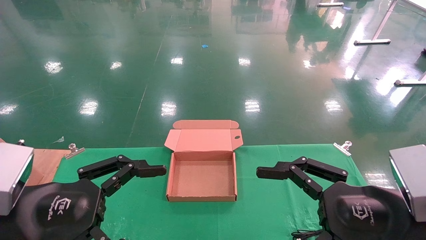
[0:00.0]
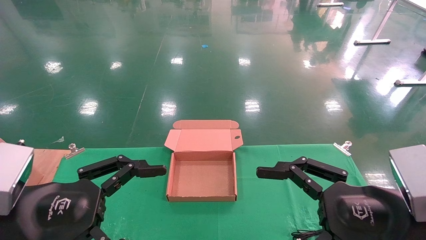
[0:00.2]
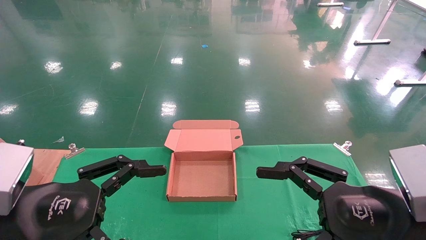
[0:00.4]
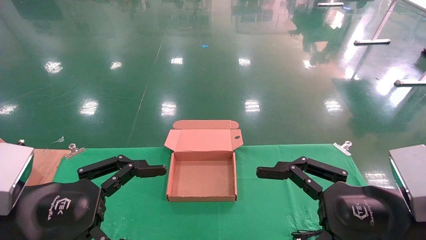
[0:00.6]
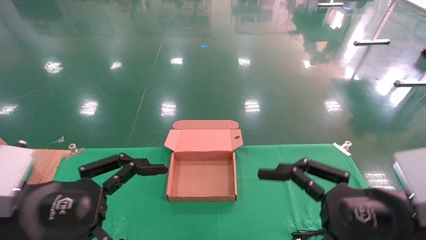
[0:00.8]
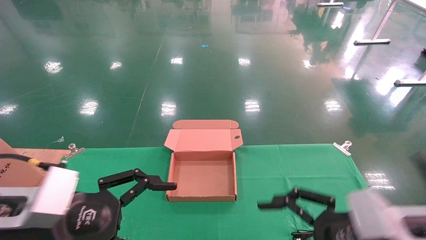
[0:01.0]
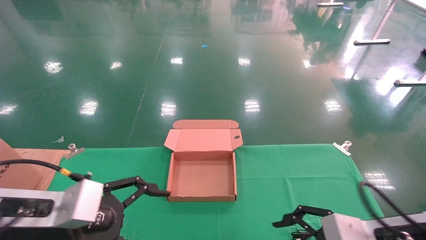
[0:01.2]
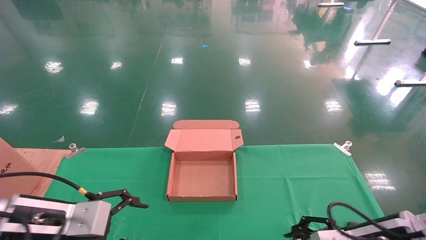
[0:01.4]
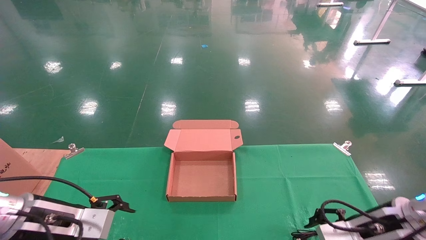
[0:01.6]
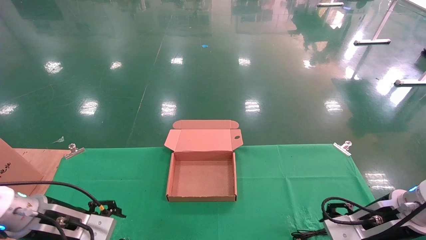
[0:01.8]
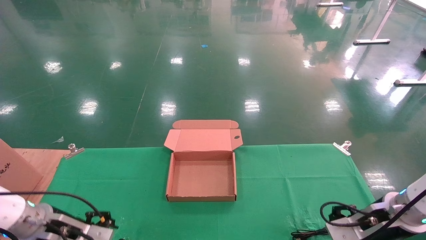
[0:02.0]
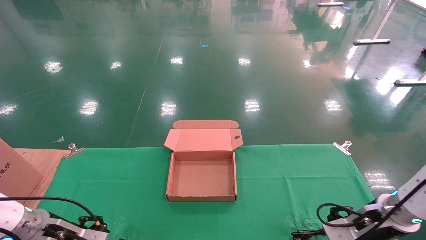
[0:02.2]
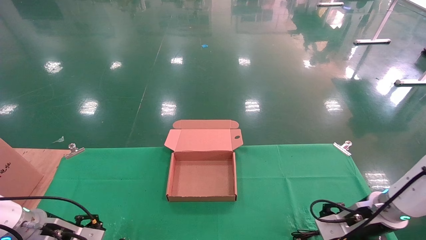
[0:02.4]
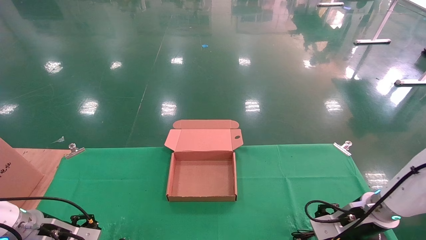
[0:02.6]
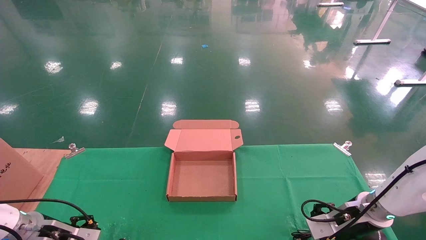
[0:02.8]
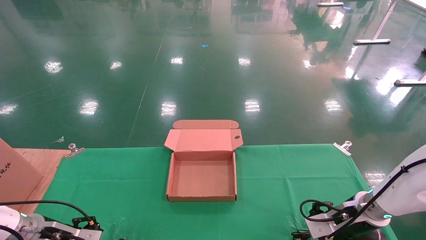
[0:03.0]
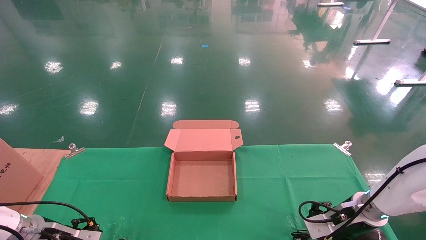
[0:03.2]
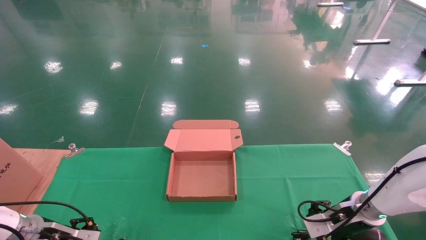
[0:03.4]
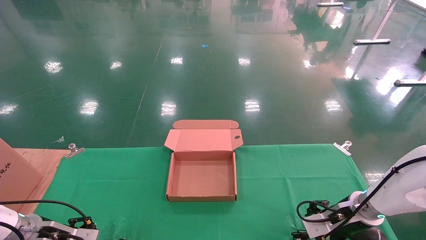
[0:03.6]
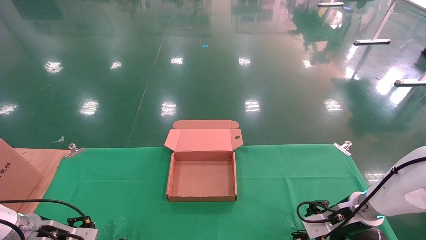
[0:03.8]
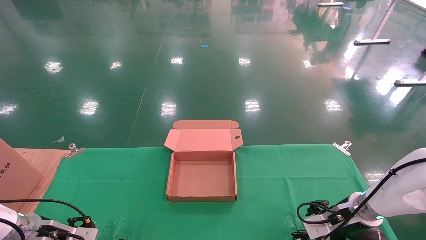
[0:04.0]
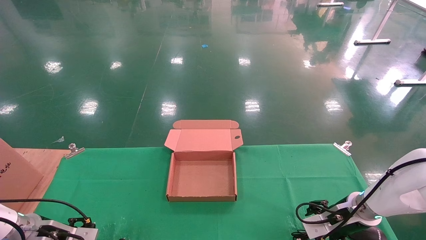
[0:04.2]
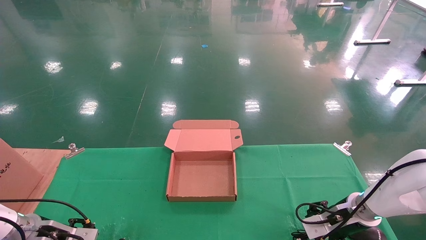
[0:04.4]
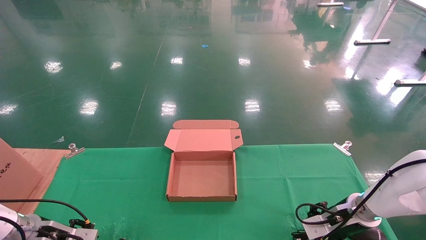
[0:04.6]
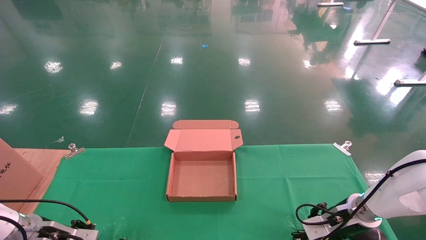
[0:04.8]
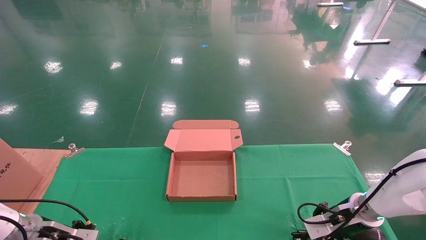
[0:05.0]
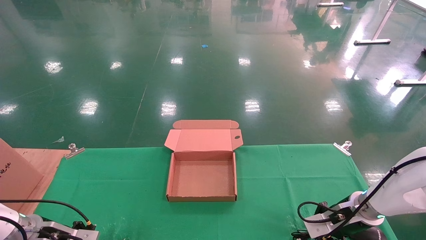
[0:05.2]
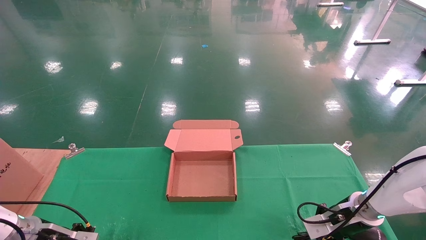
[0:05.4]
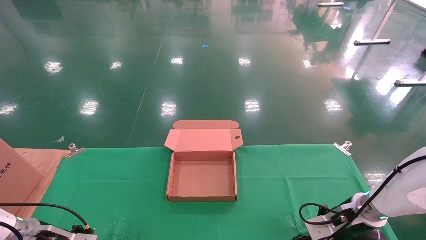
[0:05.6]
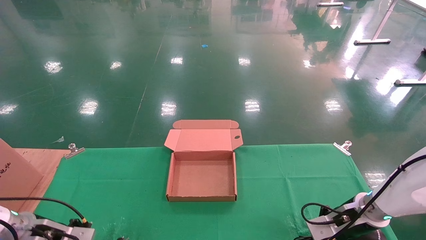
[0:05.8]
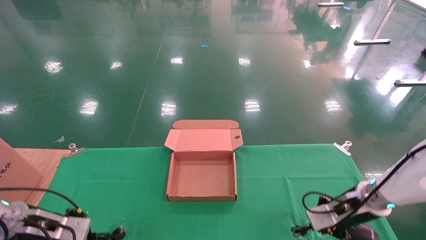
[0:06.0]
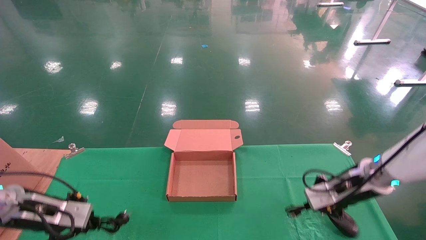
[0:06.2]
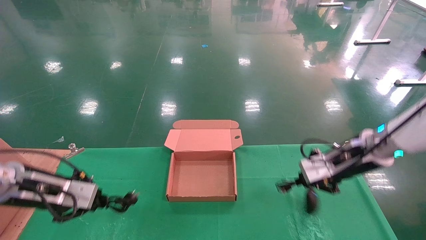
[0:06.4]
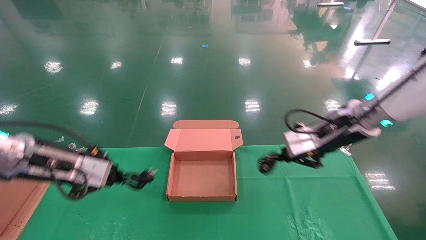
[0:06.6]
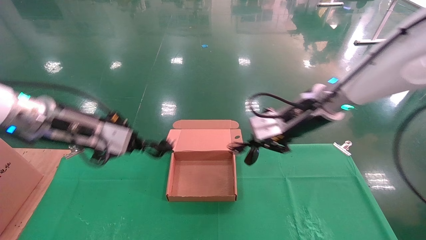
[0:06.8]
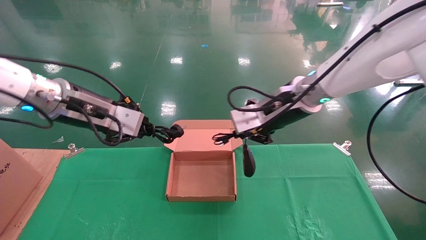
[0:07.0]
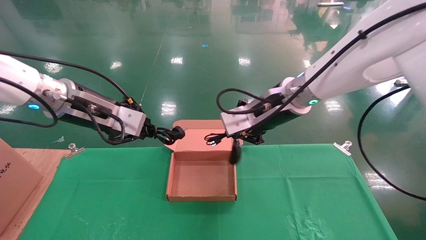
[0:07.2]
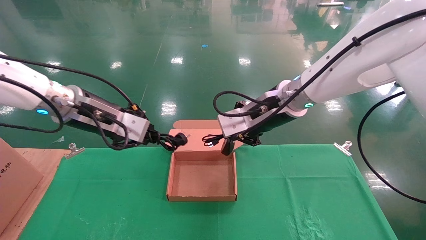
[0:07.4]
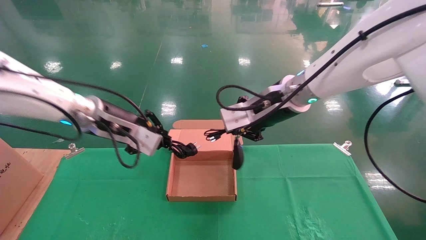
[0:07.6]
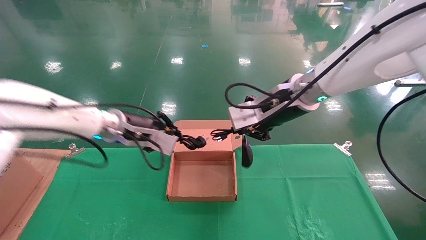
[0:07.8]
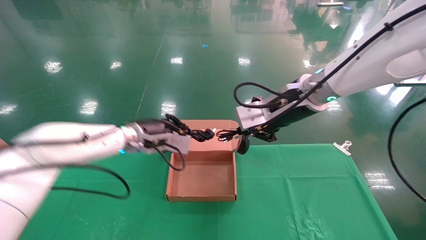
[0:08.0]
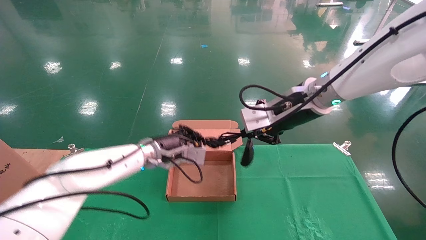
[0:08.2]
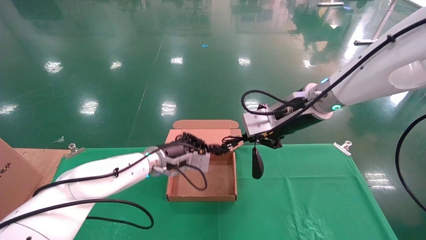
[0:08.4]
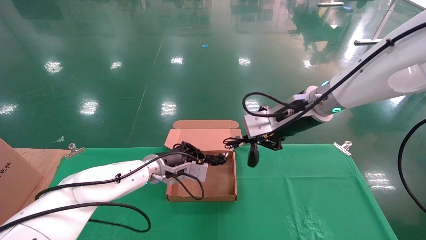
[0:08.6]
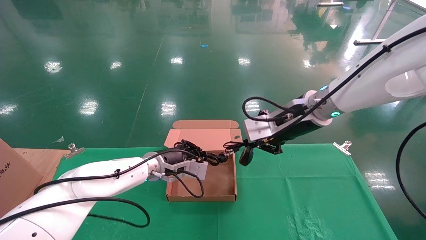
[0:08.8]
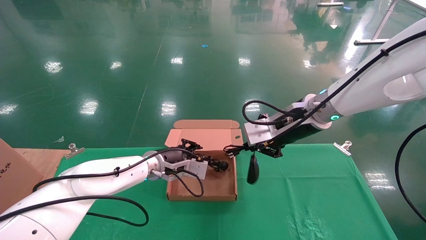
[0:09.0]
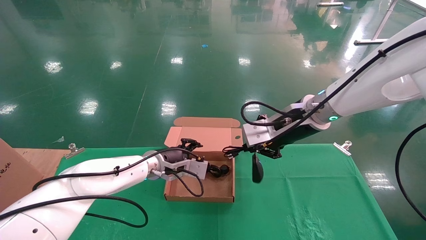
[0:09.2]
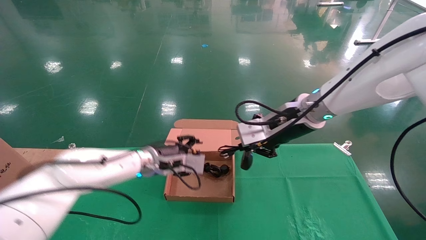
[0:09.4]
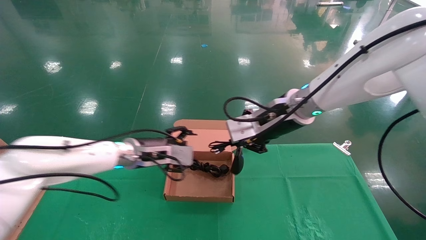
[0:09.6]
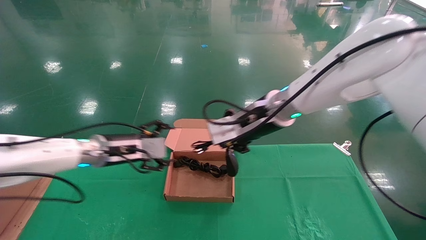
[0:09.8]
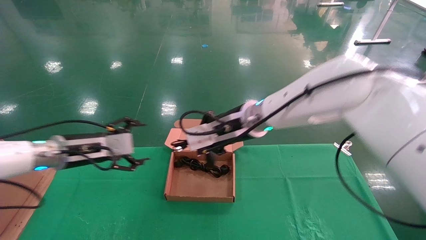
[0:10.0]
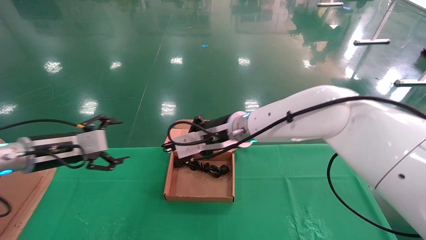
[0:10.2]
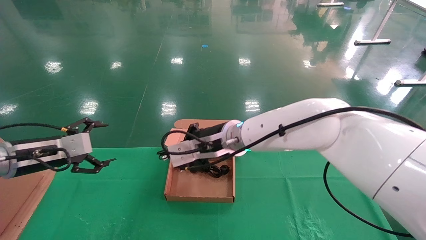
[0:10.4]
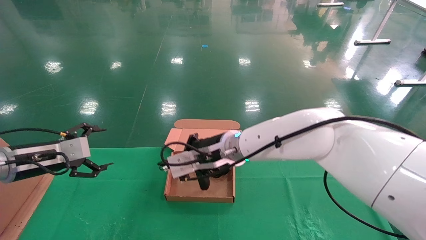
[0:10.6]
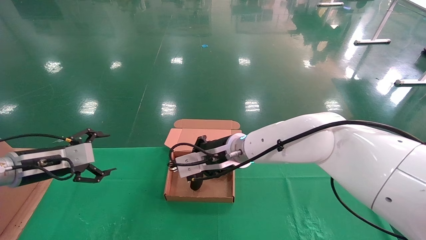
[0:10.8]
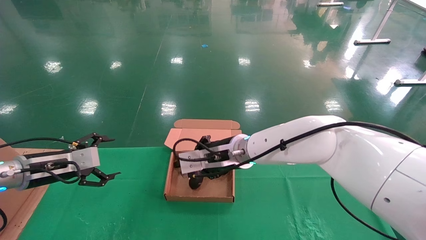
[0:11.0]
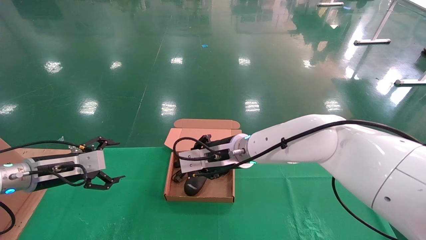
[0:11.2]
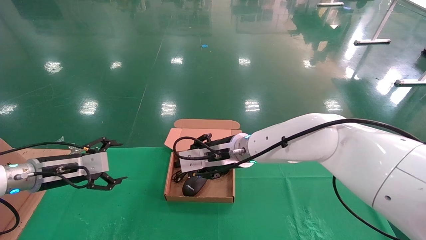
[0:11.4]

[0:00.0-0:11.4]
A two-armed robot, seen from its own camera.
Step, 0:01.2 to 0:05.0: Grab and lift both the mouse and power cord from the accessory packaging area at the same time.
0:00.0 to 0:01.4: Both grippers move forward and downward, some 10 cm.
0:01.4 to 0:02.8: The right gripper goes about 15 cm forward and downward. Meanwhile the left gripper travels downward, forward and to the left by about 15 cm.
0:02.8 to 0:04.2: The grippers make only small movements.
0:04.2 to 0:05.6: The left gripper closes up; the right gripper closes.
0:05.6 to 0:07.2: The left gripper shifts about 30 cm upward and to the right; the right gripper moves upward and to the left, some 30 cm.
0:07.2 to 0:08.6: The left gripper goes roughly 25 cm downward, forward and to the right.
0:08.6 to 0:10.0: The left gripper is displaced to the left and backward by approximately 20 cm, and opens, while the right gripper moves to the left, about 10 cm.
0:10.0 to 0:11.4: The right gripper shifts about 5 cm downward. The left gripper shifts roughly 5 cm to the left.

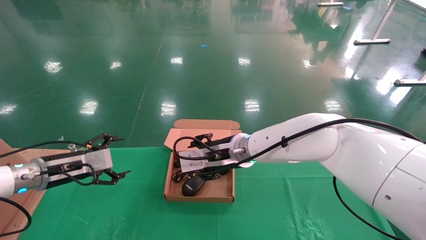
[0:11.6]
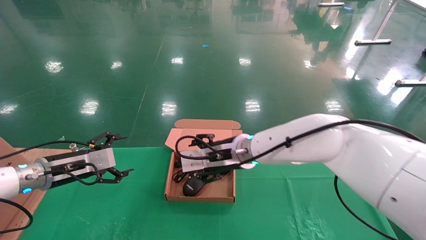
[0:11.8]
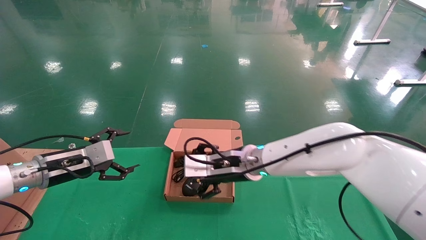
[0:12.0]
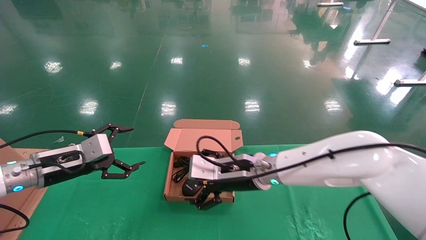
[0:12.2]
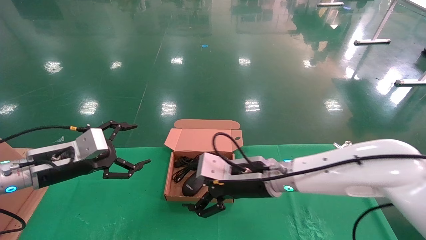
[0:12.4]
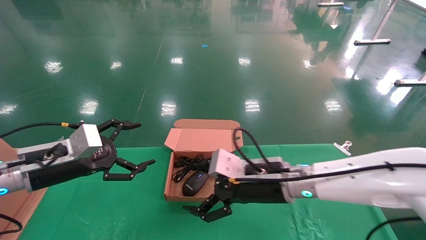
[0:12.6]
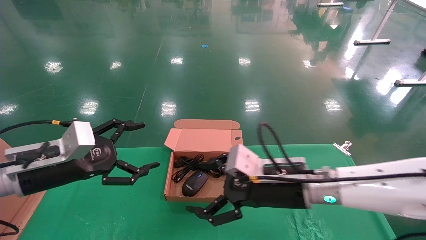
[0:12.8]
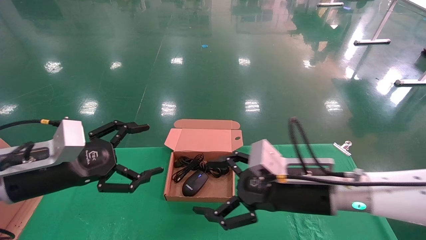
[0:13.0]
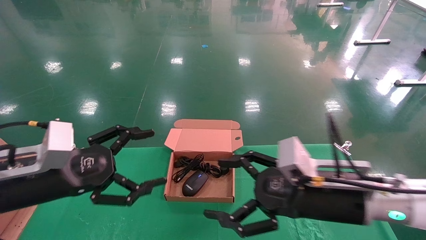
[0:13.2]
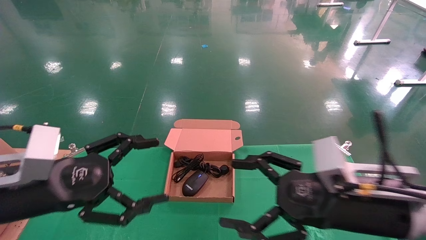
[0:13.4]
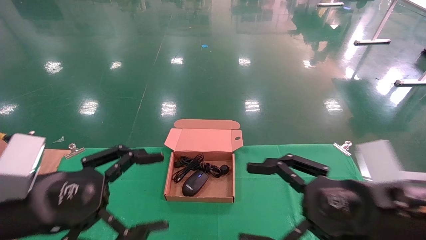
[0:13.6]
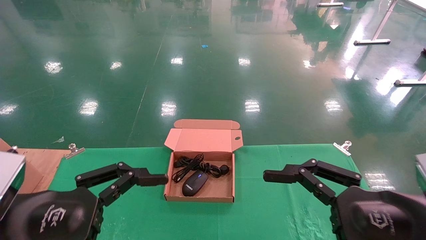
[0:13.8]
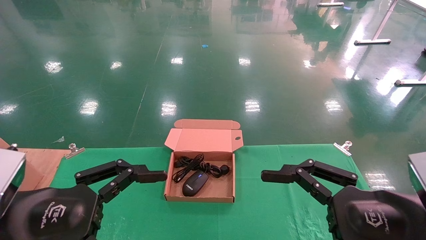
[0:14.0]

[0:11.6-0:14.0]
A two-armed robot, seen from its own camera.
0:11.6 to 0:12.8: The left gripper shifts roughly 10 cm backward and to the right; the right gripper heads to the right and backward, covering approximately 15 cm, and opens.
0:12.8 to 0:14.0: The right gripper shifts roughly 20 cm backward and to the right. Meanwhile the left gripper travels backward by roughly 15 cm.
